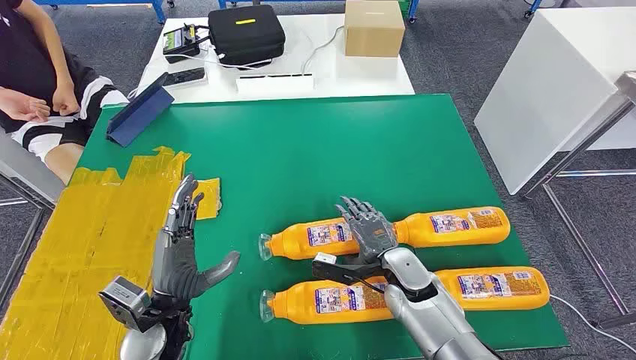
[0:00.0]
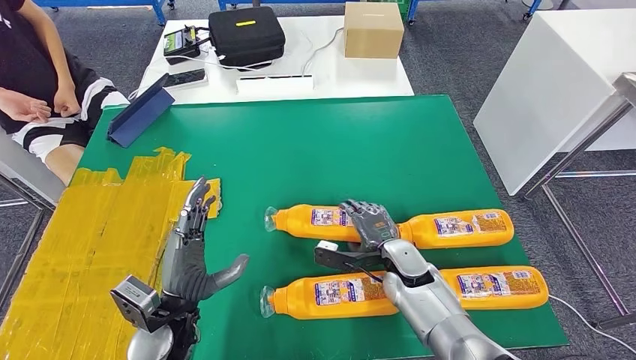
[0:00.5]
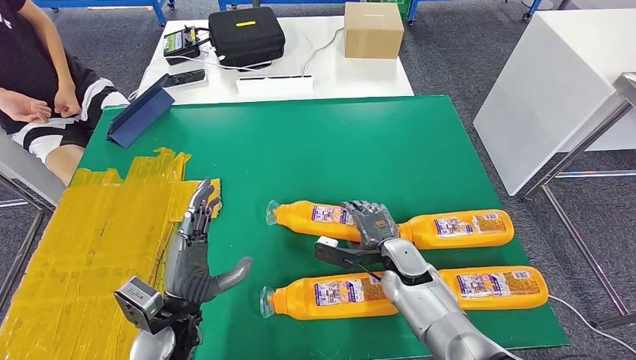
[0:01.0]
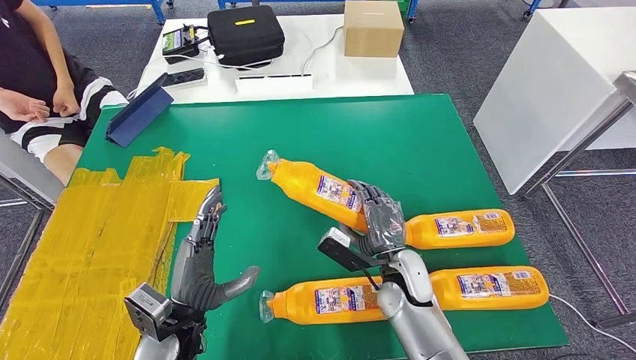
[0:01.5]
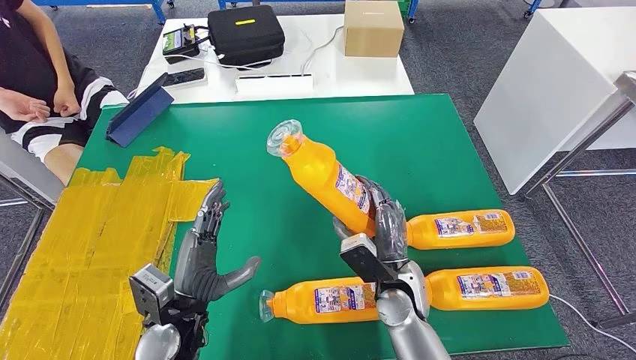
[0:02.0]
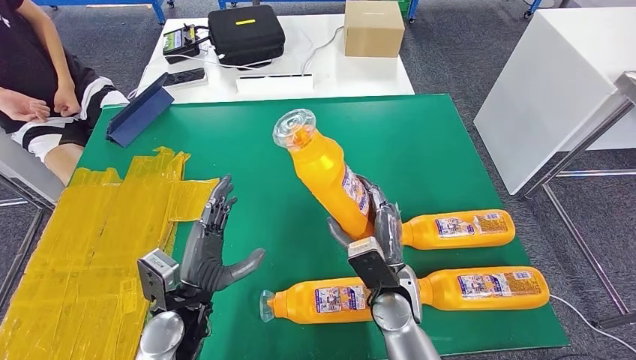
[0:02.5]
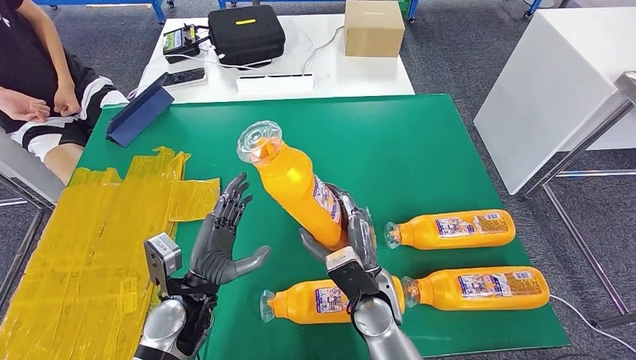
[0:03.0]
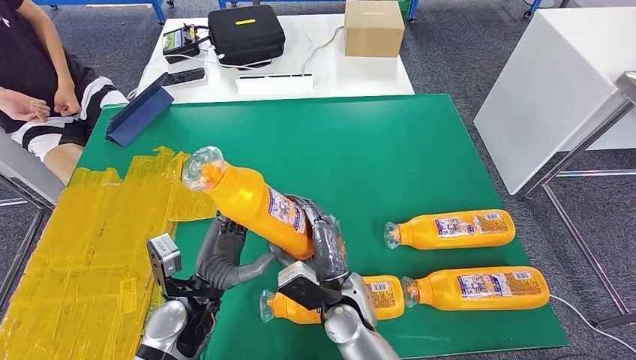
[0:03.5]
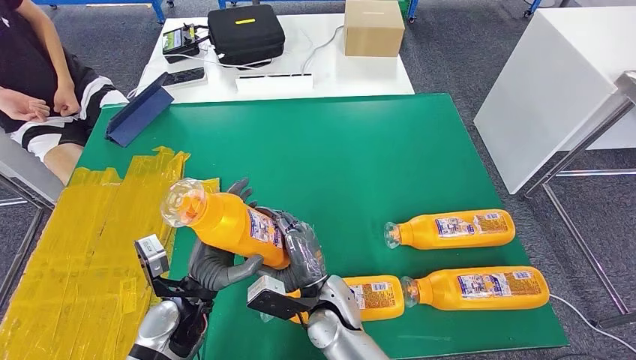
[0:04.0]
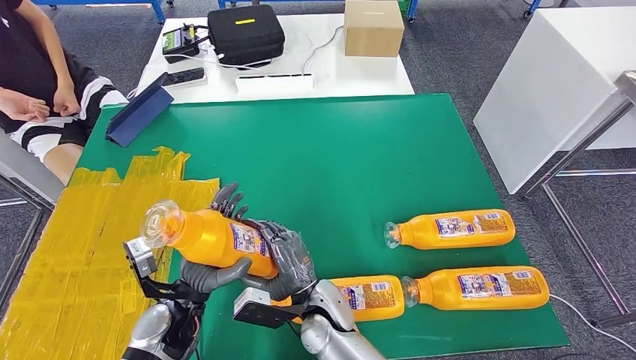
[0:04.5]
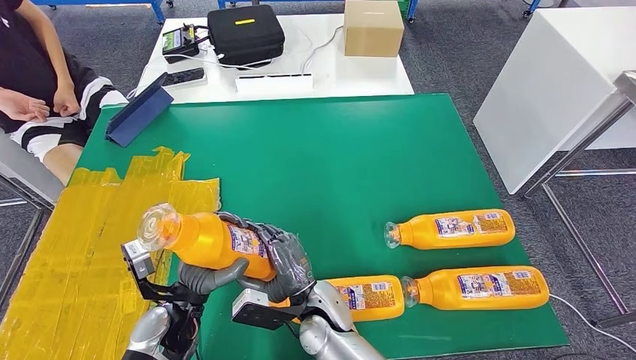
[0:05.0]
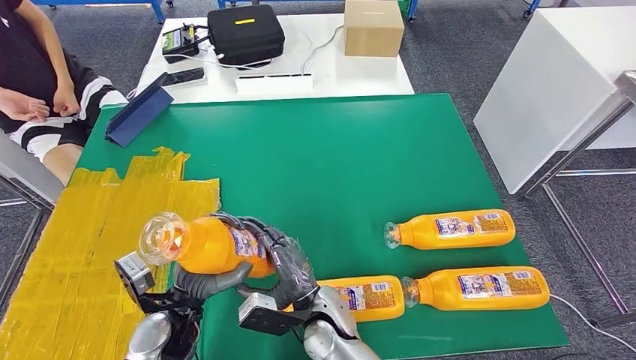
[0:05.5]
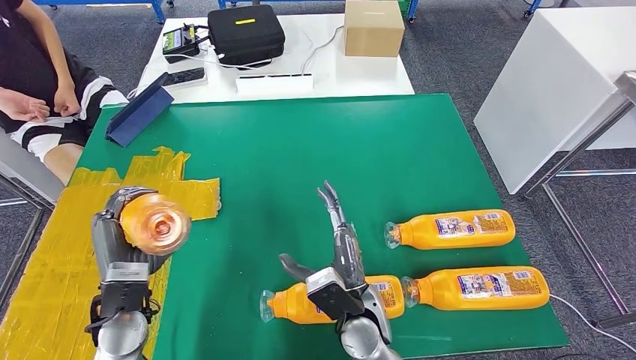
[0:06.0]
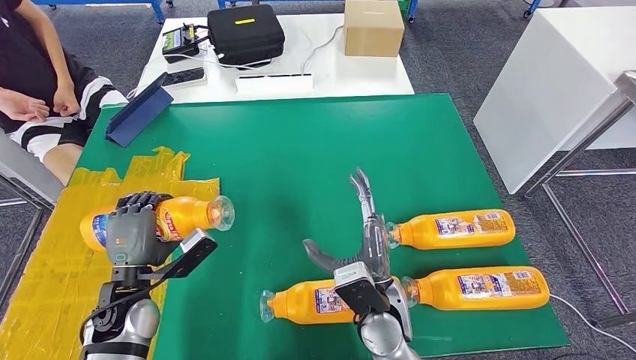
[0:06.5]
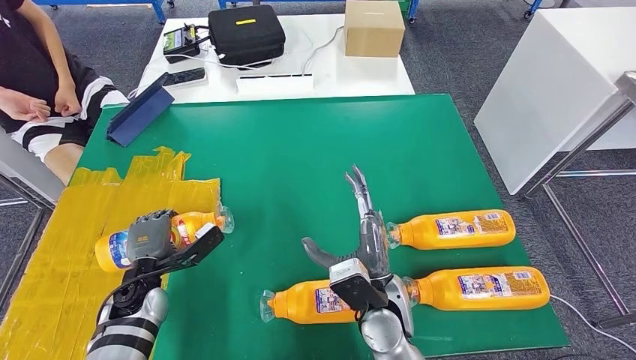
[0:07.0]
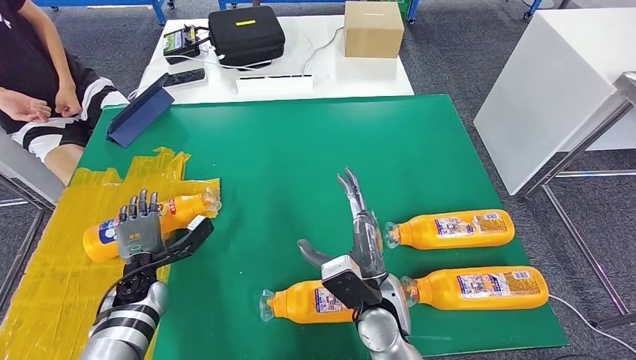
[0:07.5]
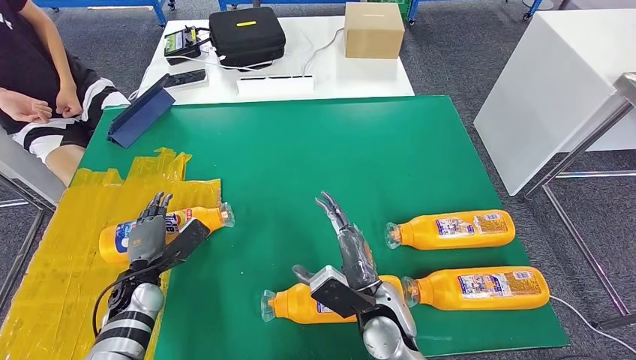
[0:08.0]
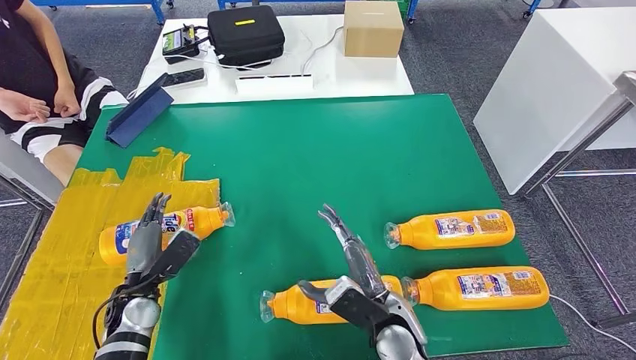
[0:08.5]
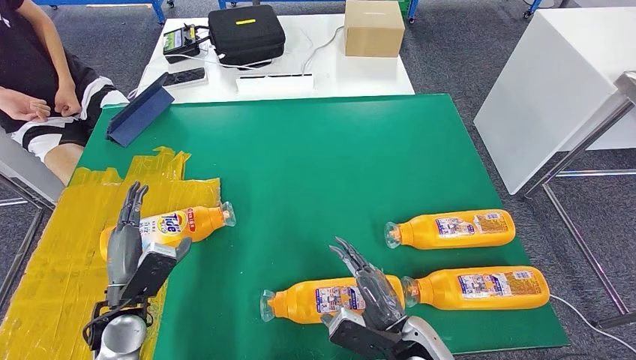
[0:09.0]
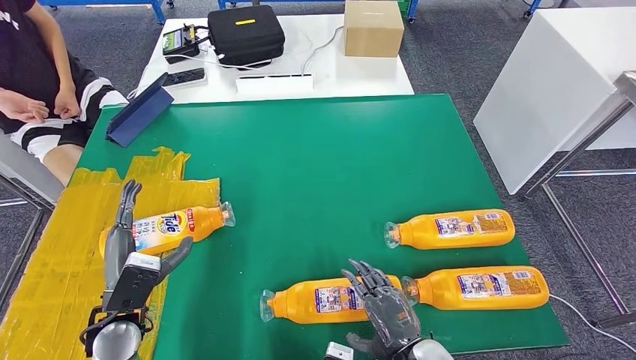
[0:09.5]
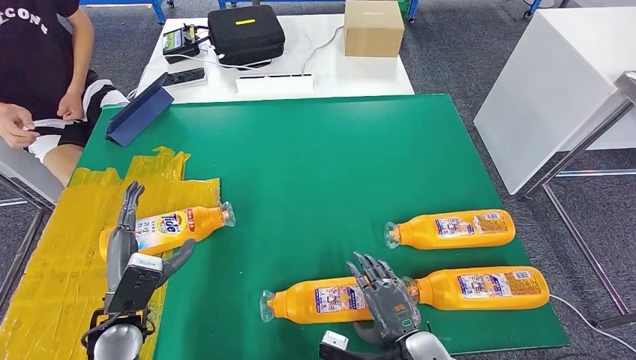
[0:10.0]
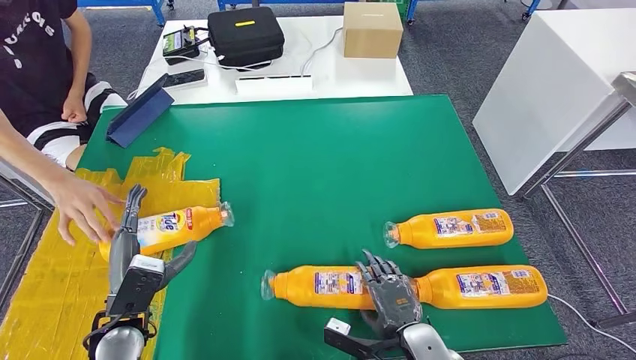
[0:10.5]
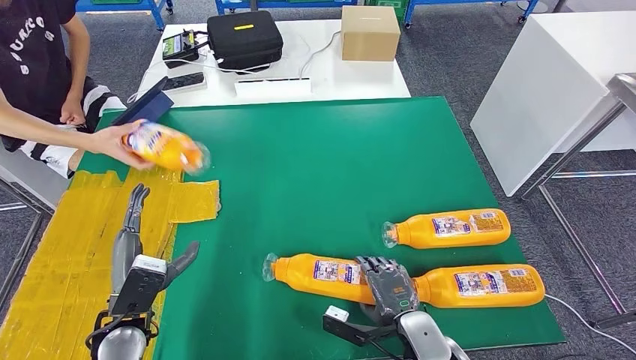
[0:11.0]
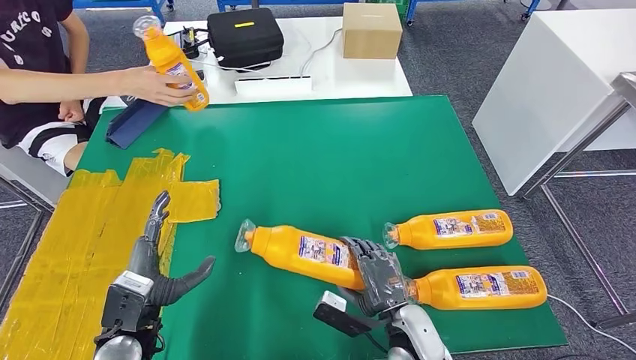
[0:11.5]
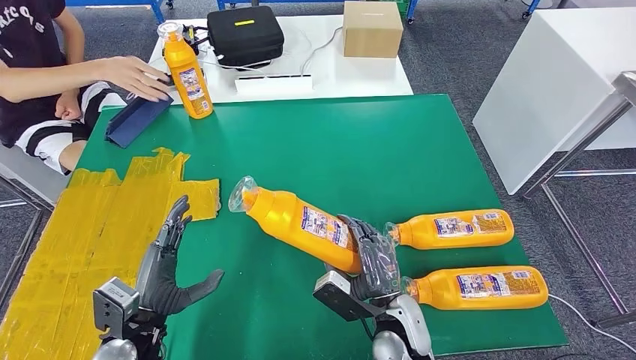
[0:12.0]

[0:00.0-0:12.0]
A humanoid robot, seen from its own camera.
Step, 0:00.0 to 0:04.0: Take the fast-moving consumer goods bottle from the table.
Step, 0:04.5 to 0:08.0: Flip the fast-moving consumer goods bottle to the front side.
0:02.0 to 0:04.0: The right hand goes about 15 cm to the left.
0:04.0 to 0:06.0: The left hand shifts roughly 10 cm to the left. The right hand travels to the right by roughly 5 cm.
0:06.0 to 0:08.0: The left hand shifts roughly 10 cm downward and forward.
0:08.0 to 0:10.0: The right hand shifts some 10 cm backward and to the right, while the left hand moves backward and upward, some 10 cm.

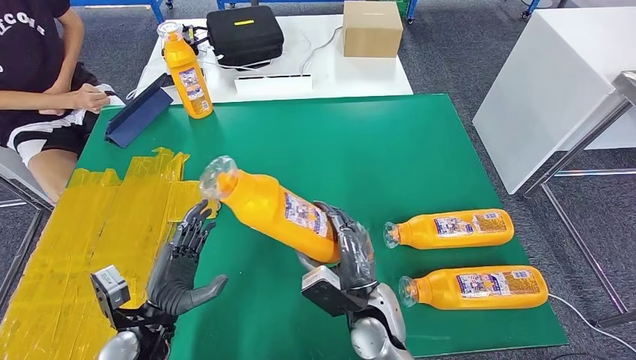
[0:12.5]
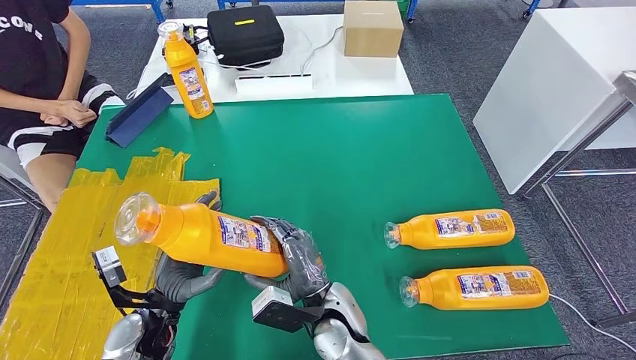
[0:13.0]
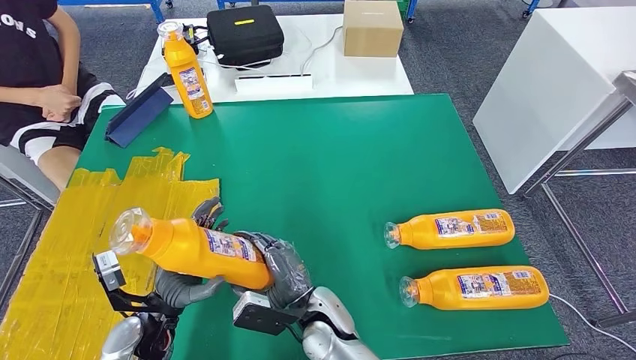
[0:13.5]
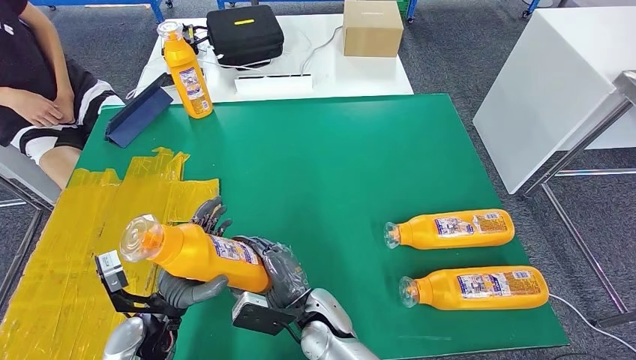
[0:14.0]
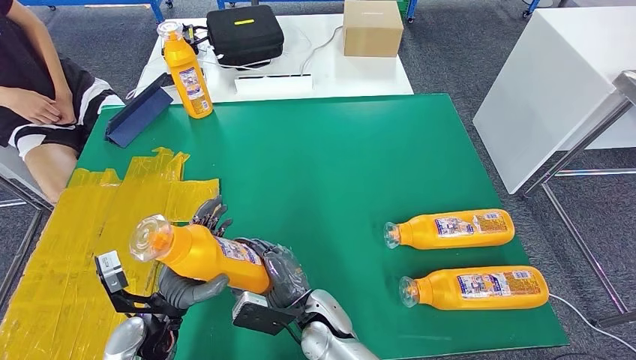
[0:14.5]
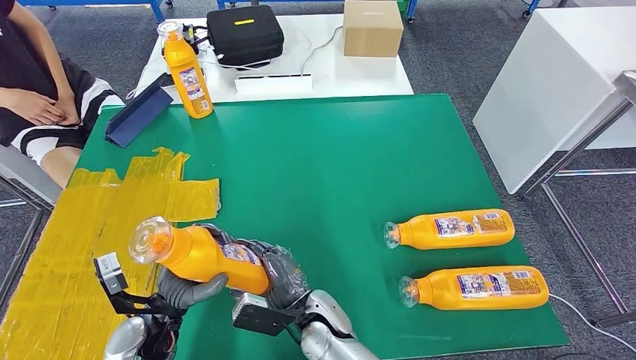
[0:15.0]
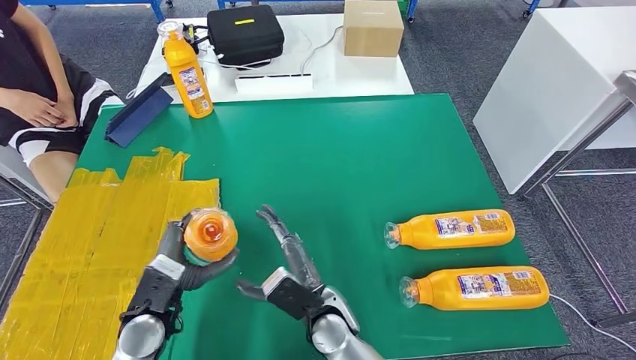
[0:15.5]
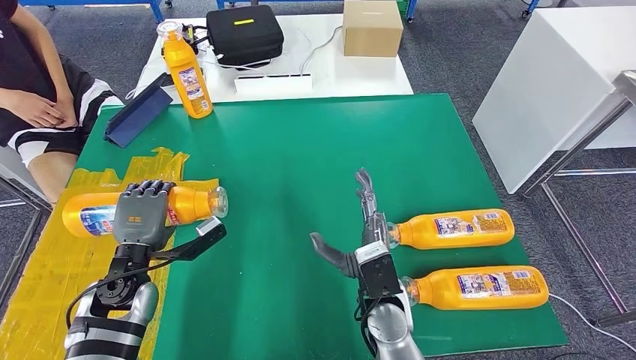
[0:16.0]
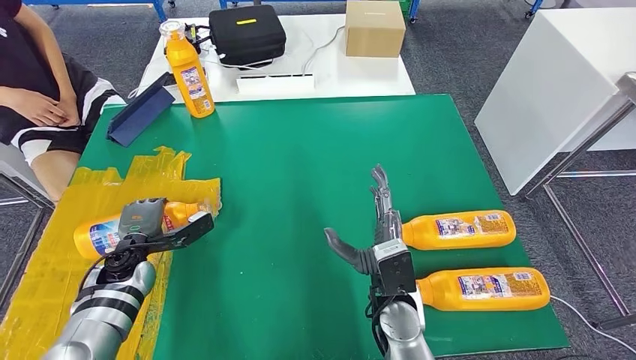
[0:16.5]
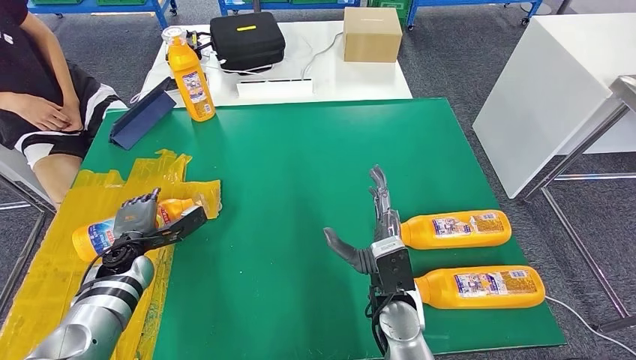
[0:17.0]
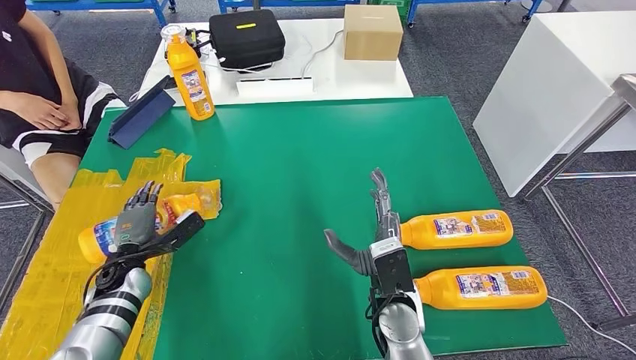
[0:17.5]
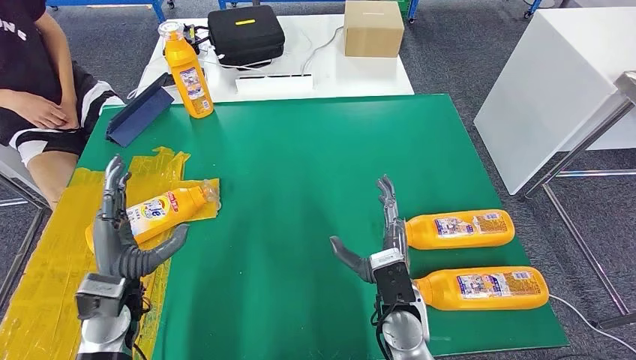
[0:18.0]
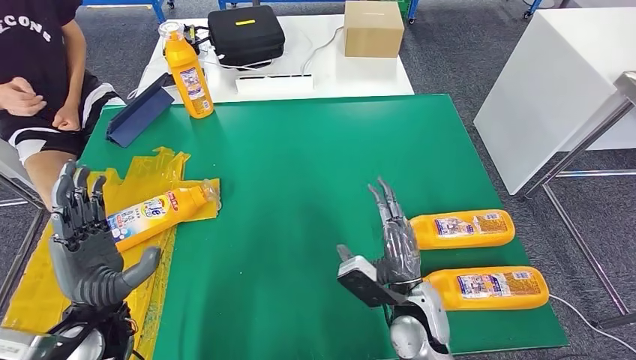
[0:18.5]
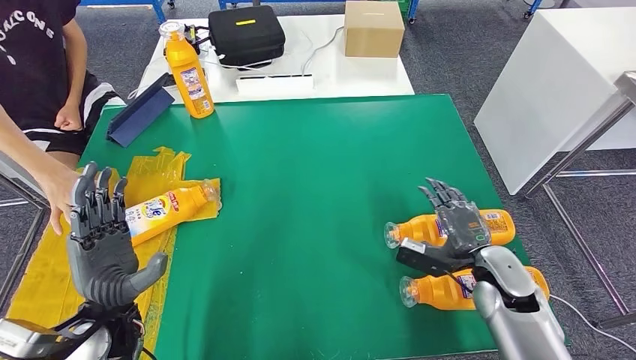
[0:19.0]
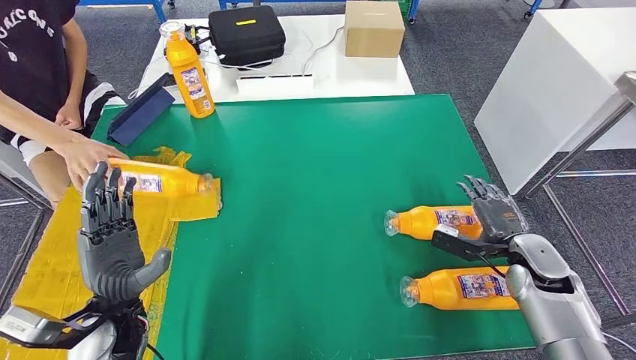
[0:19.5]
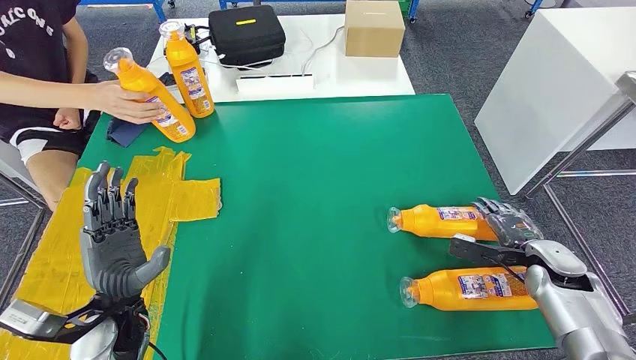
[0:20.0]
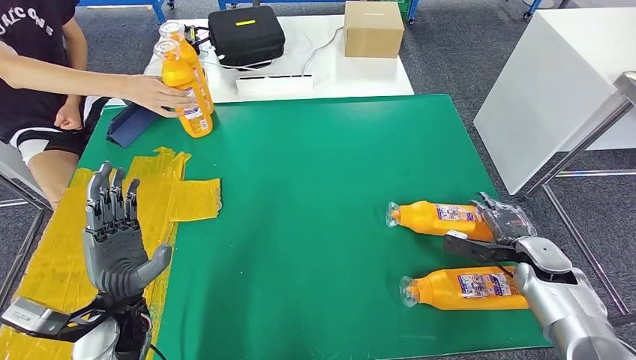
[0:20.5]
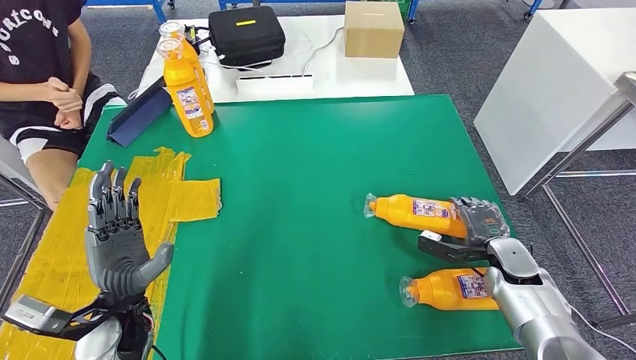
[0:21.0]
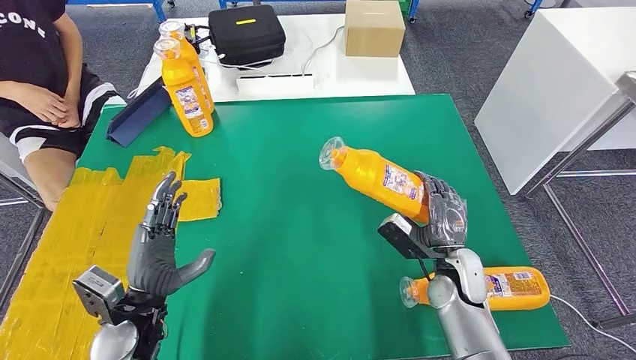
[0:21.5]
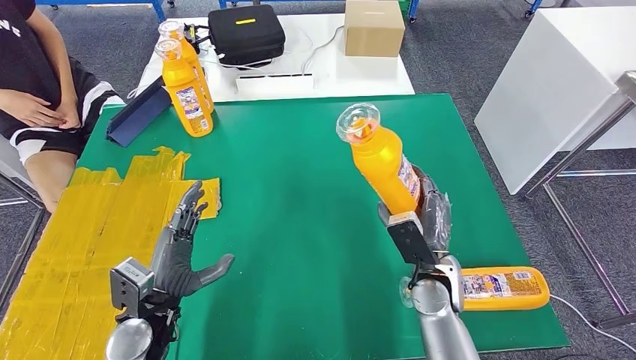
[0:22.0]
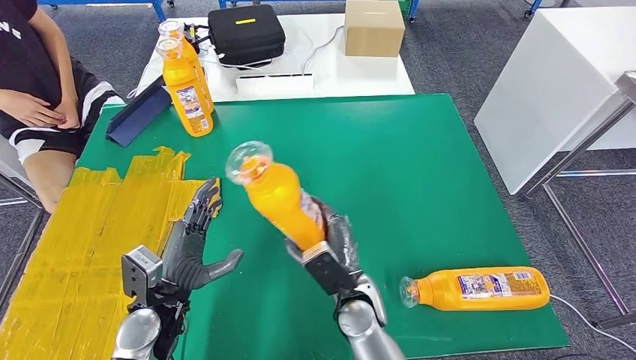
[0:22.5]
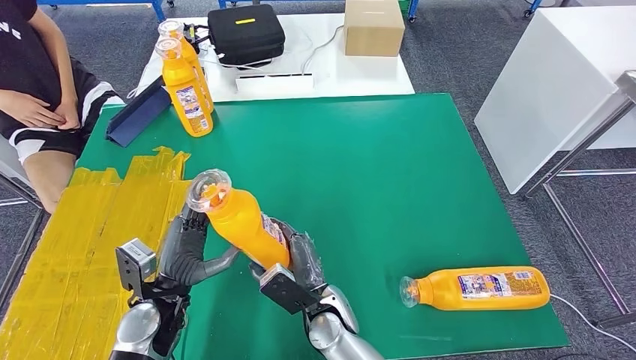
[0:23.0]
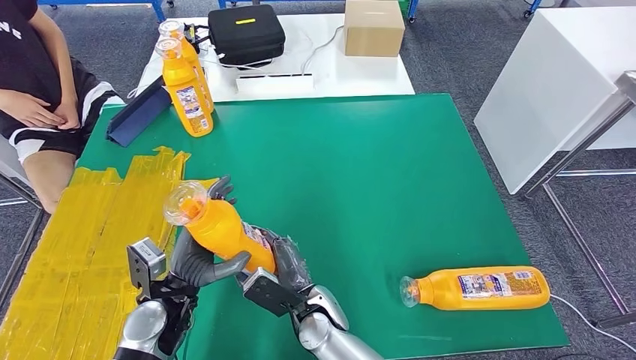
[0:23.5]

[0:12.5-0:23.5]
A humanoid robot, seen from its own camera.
Step, 0:13.0 to 0:17.0: Flip the fast-moving consumer goods bottle to the front side.
0:12.5 to 0:14.5: The right hand goes about 10 cm to the left.
0:14.5 to 0:16.0: The right hand shifts about 10 cm to the right and upward. Meanwhile the left hand shifts about 5 cm forward.
